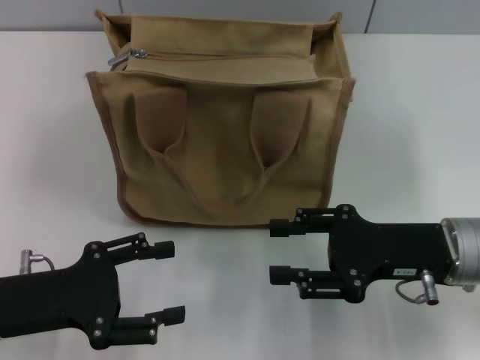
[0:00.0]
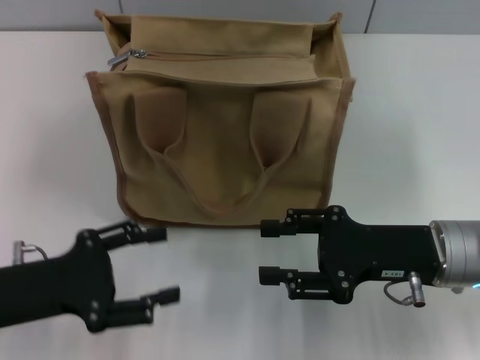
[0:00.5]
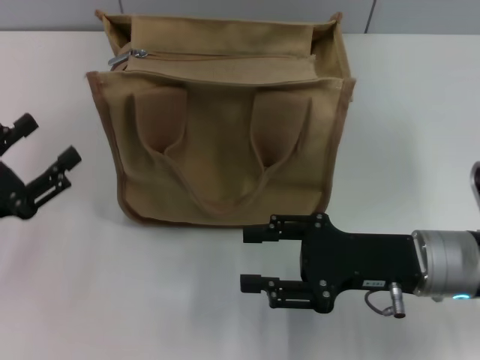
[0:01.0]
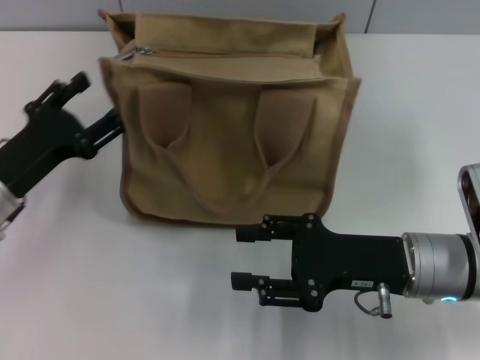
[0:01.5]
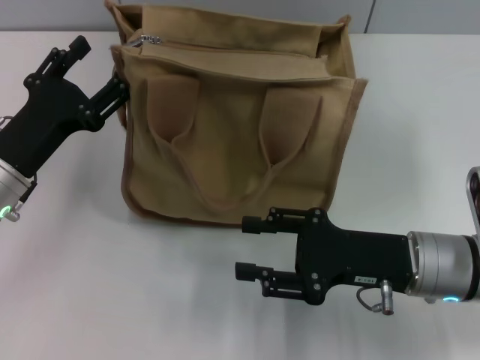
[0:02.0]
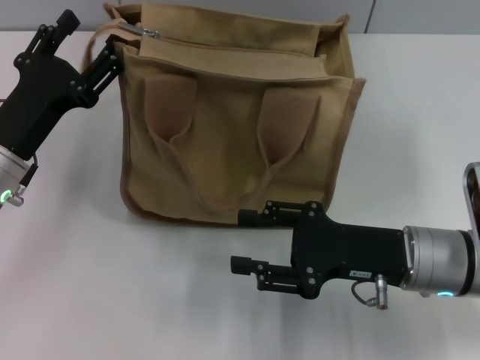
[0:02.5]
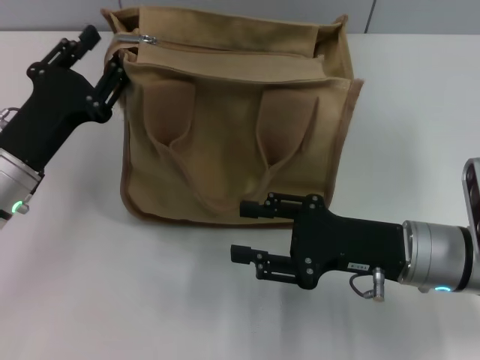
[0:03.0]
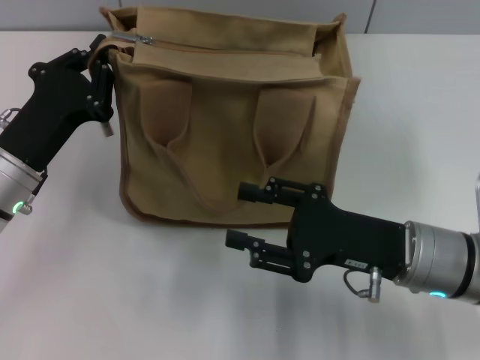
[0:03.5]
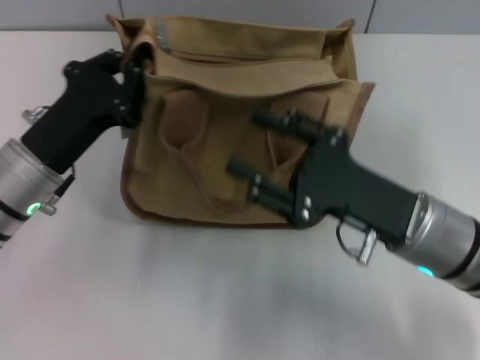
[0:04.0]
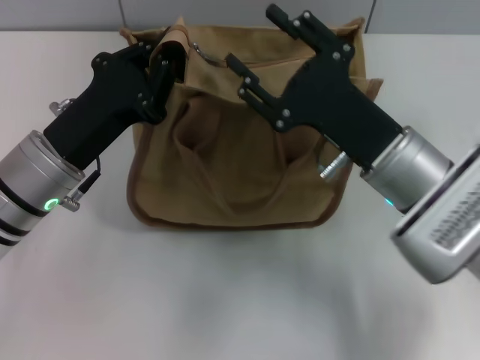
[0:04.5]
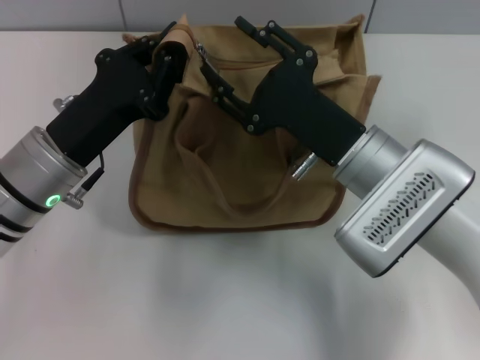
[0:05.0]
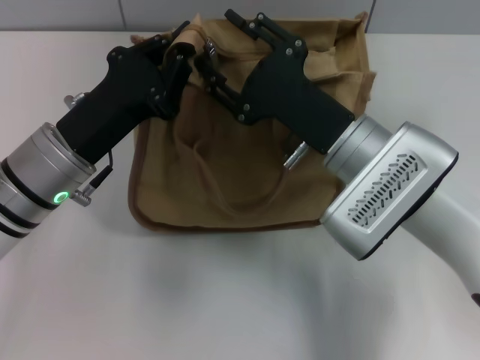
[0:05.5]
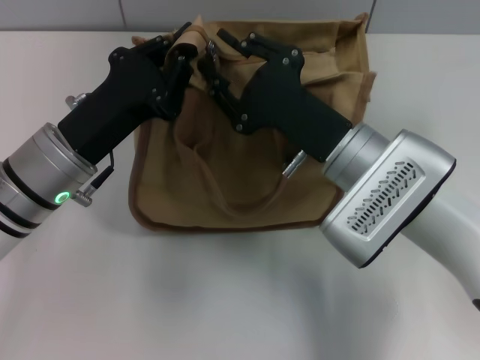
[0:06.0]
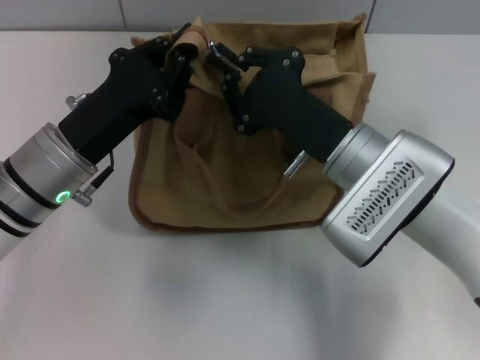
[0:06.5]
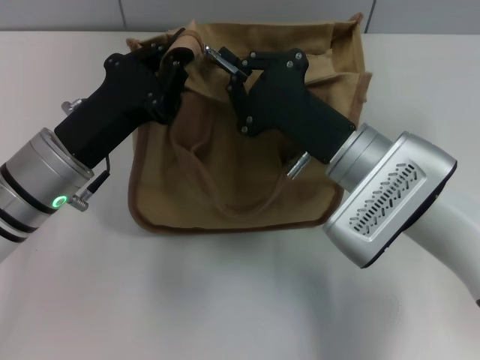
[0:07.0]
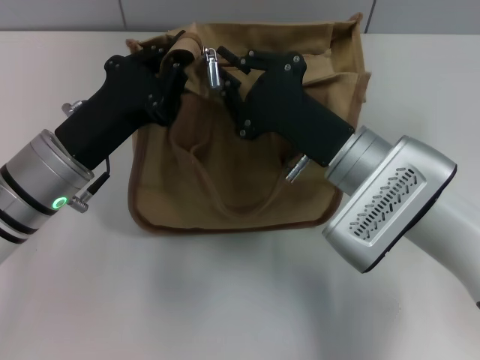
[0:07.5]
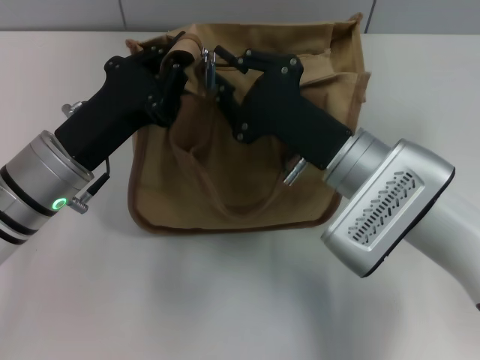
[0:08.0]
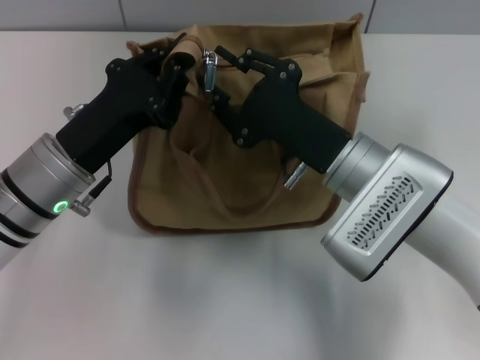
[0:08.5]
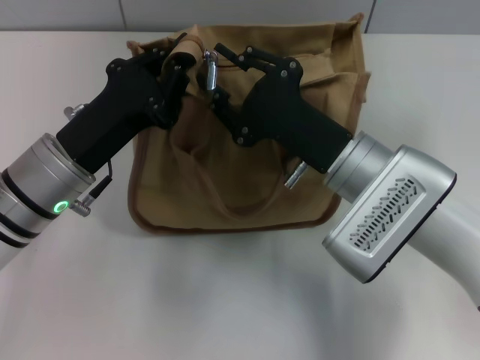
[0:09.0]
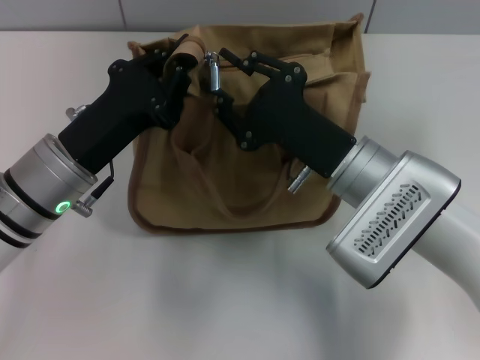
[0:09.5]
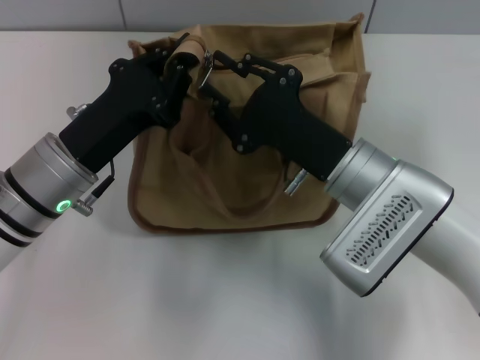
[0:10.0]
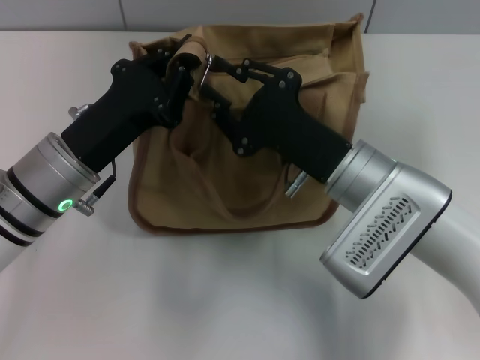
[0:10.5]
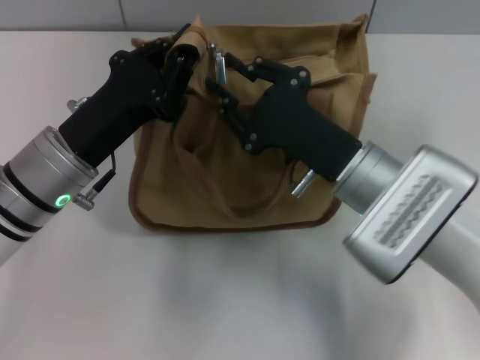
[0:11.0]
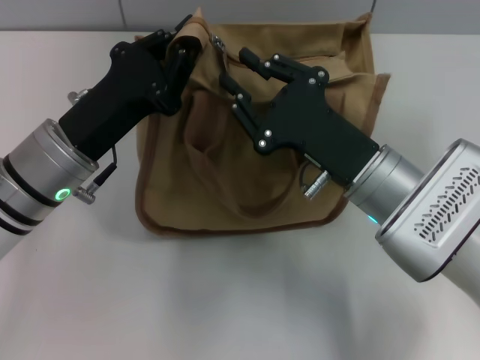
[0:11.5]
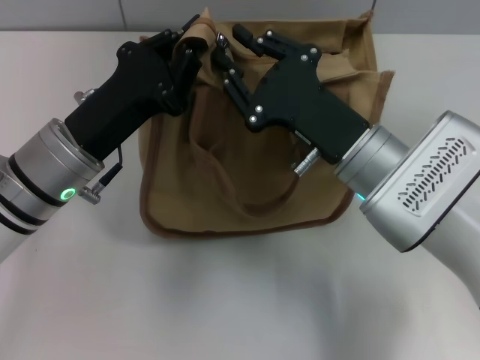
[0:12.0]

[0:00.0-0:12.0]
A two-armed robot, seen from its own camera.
0:00.0 to 0:02.0: The left gripper heads forward, covering some 10 cm.
0:02.0 to 0:04.0: The left gripper closes up.
0:04.0 to 0:06.0: The right gripper heads to the left and forward, covering some 5 cm.
0:06.0 to 0:08.0: The right gripper closes.
0:08.0 to 0:10.0: Both grippers stay about where they are.

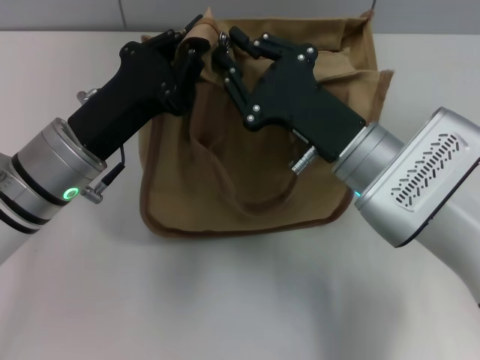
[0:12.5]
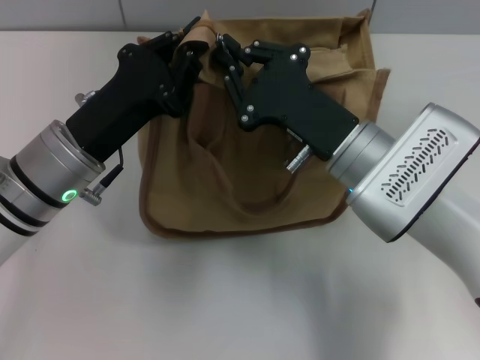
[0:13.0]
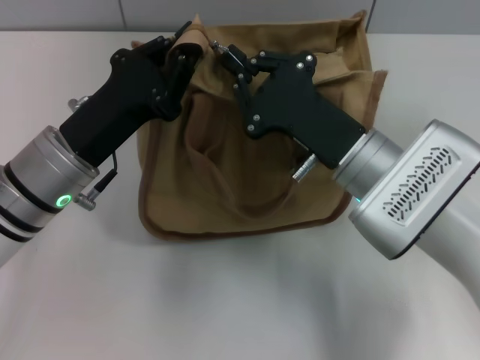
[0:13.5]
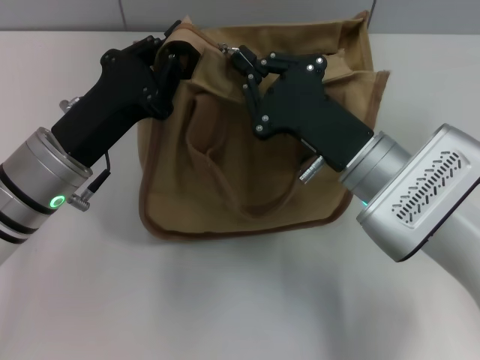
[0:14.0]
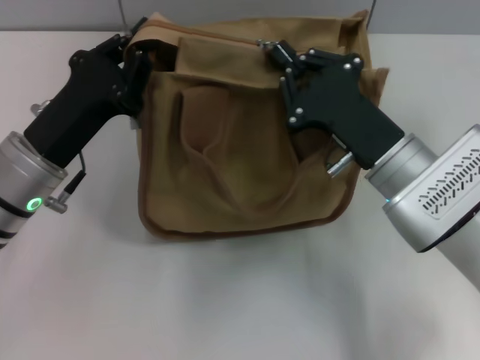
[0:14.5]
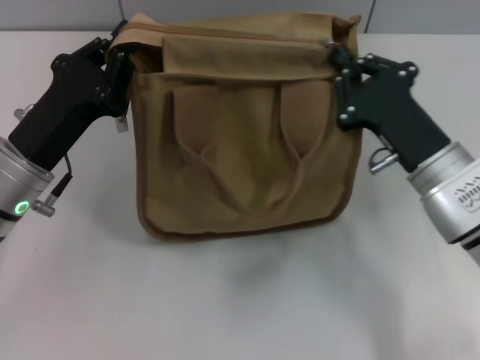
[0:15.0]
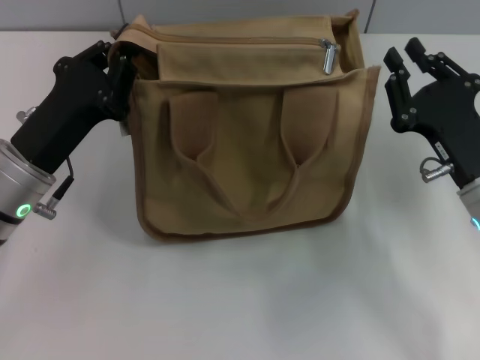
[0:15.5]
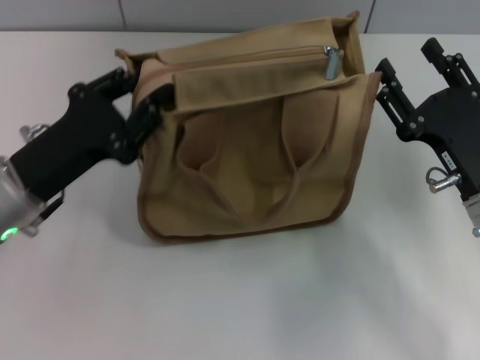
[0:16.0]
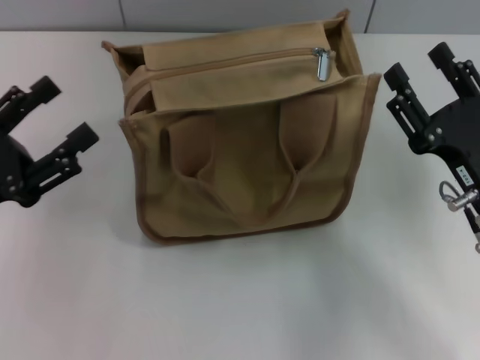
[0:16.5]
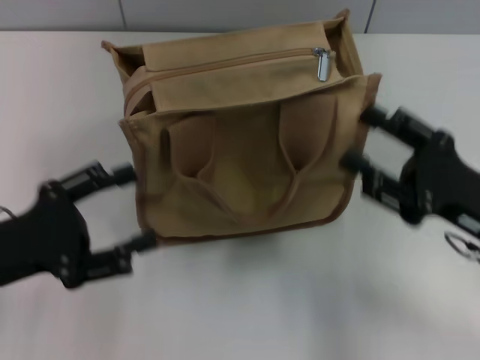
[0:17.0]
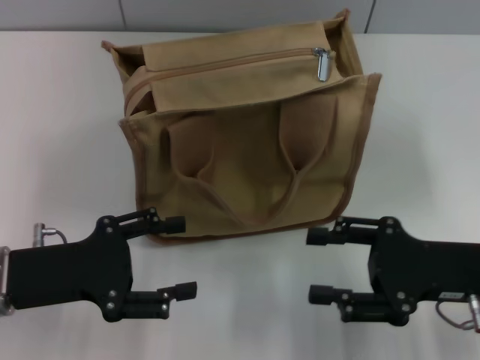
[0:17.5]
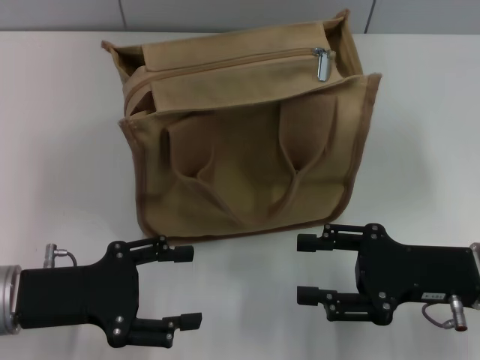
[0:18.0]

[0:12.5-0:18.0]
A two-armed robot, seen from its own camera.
Step, 0:12.5 to 0:15.0: Pull up the zipper with your right hand.
Step, 0:15.5 to 0:16.0: Grab the zipper with your left hand.
0:12.5 to 0:14.5: The right gripper closes.
0:14.5 to 0:16.0: The right gripper moves to the right, approximately 10 cm, and opens up.
0:16.0 to 0:18.0: The left gripper is displaced backward by some 5 cm, and opens up.

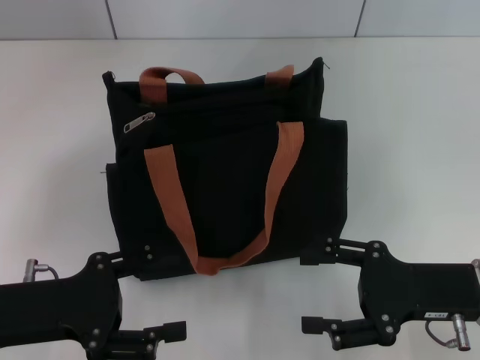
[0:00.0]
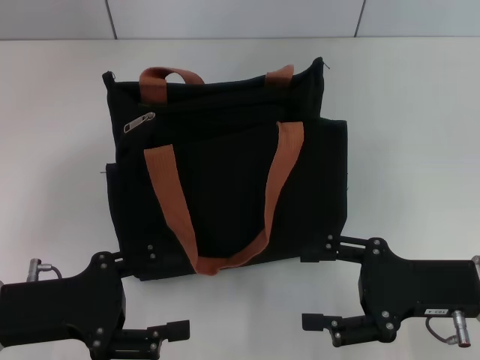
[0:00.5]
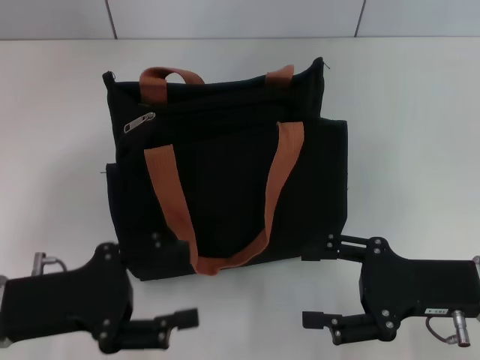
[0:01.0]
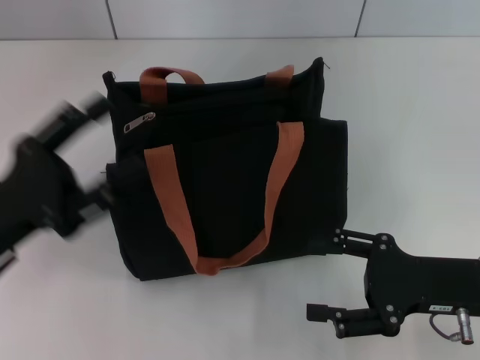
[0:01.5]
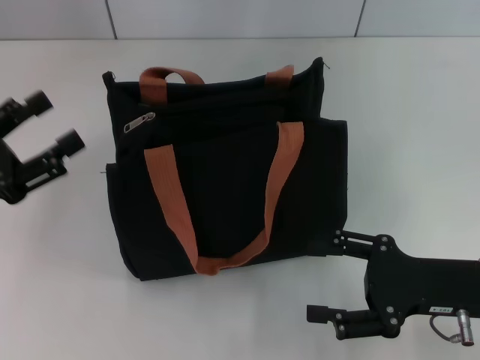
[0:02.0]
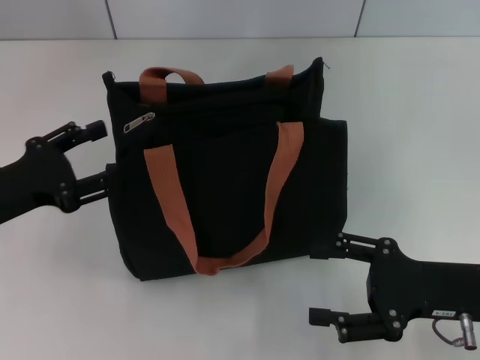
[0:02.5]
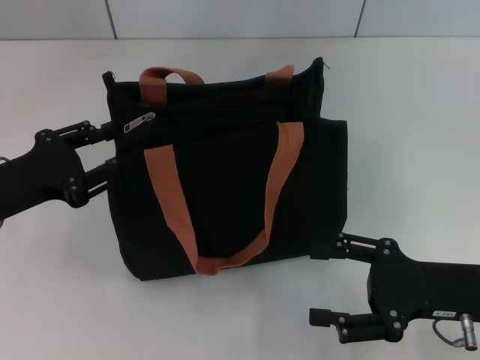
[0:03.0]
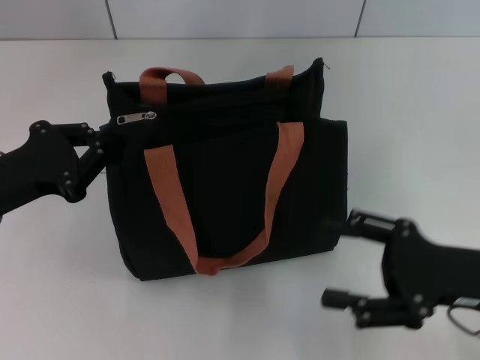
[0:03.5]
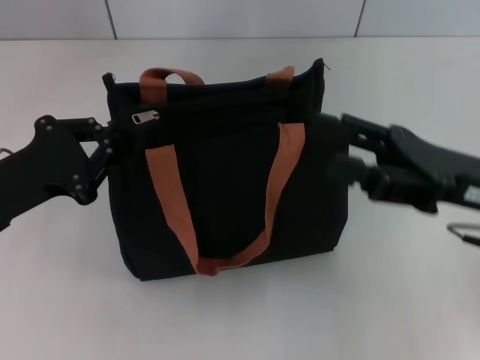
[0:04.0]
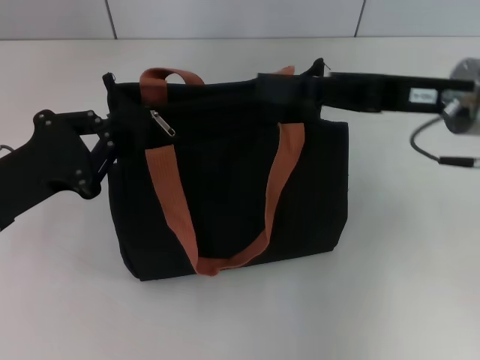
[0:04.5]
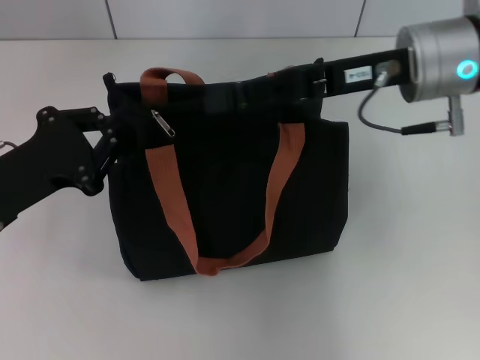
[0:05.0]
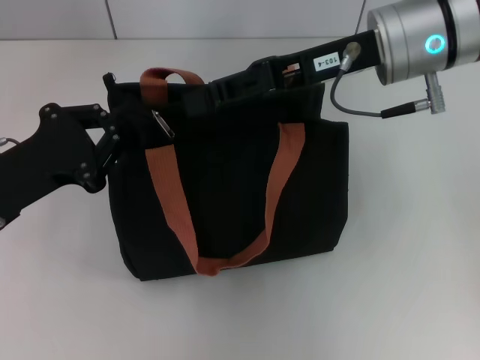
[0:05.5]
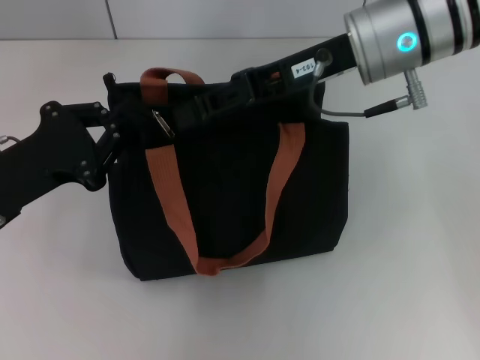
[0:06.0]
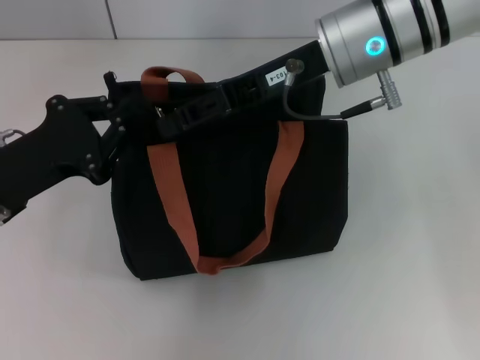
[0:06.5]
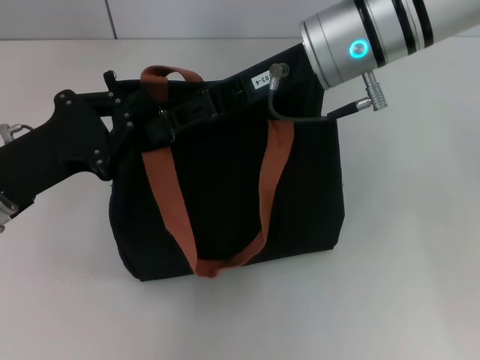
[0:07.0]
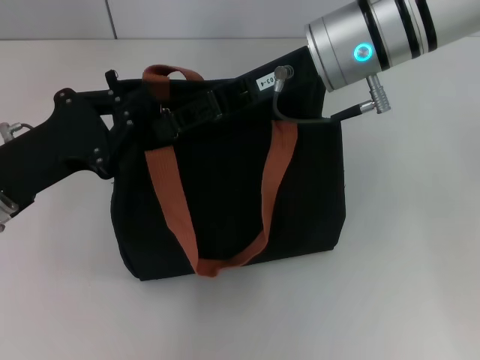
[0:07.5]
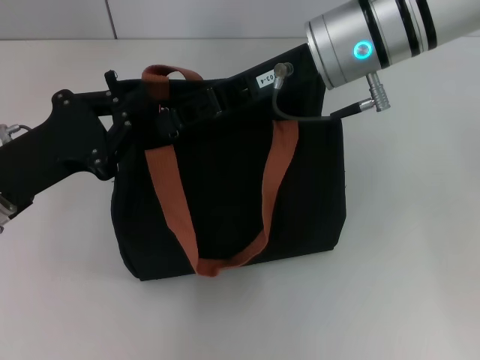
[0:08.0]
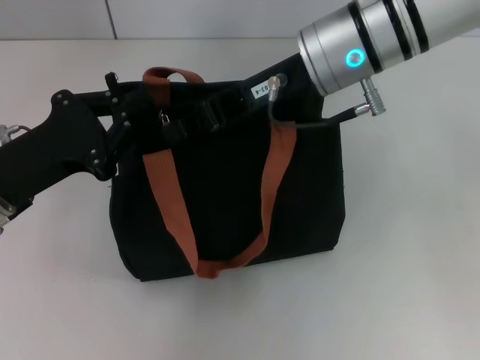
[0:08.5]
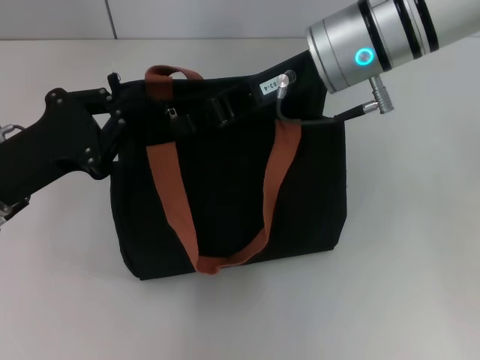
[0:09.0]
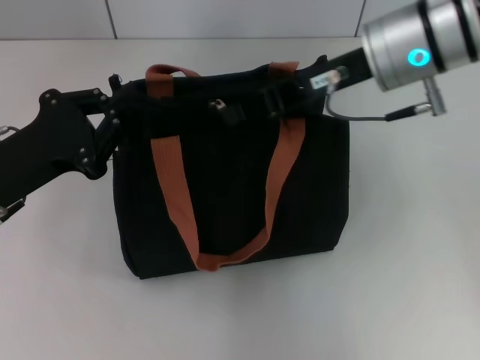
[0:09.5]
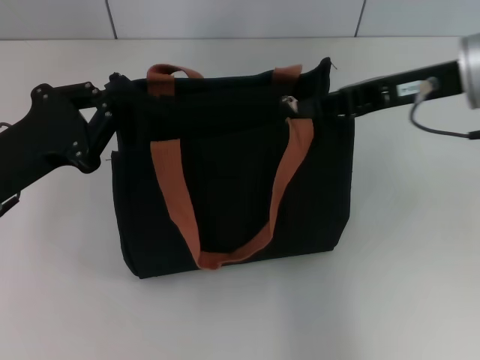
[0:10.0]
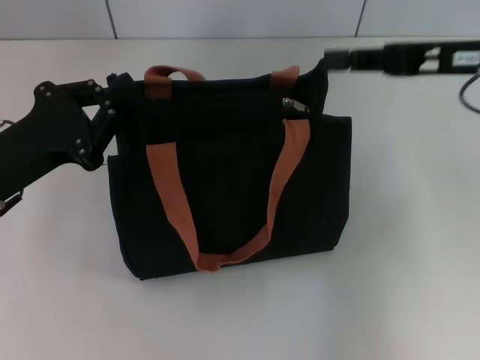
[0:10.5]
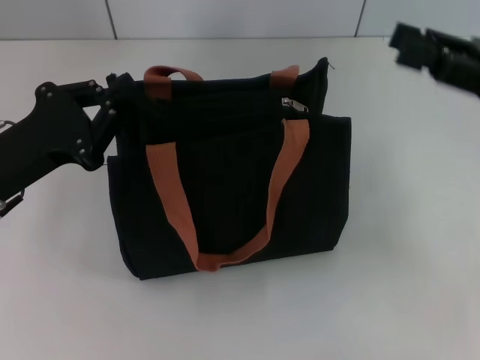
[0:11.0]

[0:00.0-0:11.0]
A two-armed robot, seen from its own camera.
Step, 0:00.0 to 0:10.0: Pull up the zipper with your right hand.
0:00.0 to 0:02.0: The left gripper goes some 5 cm to the left.
0:02.0 to 0:03.5: The left gripper closes up.
0:03.5 to 0:05.5: The right gripper heads forward, upward and to the left, covering some 25 cm, and closes up.
0:05.5 to 0:07.5: The grippers make only small movements.
0:07.5 to 0:09.0: The right gripper closes.
0:09.0 to 0:11.0: The right gripper heads to the right and backward, covering roughly 20 cm, and opens up.
